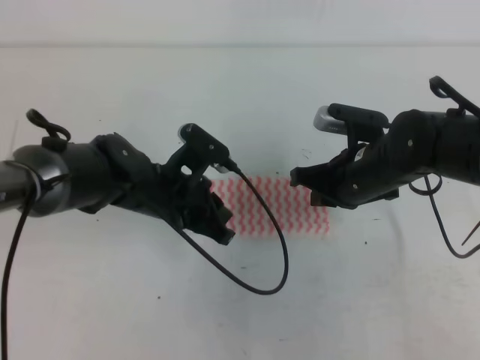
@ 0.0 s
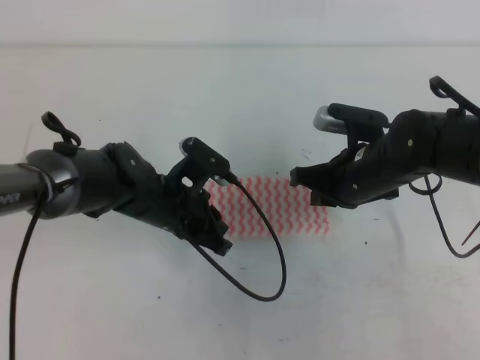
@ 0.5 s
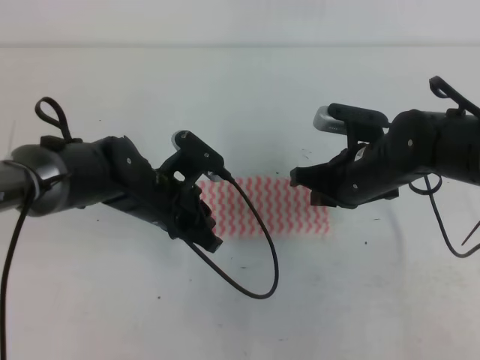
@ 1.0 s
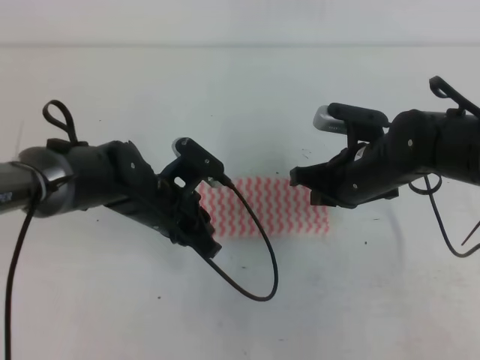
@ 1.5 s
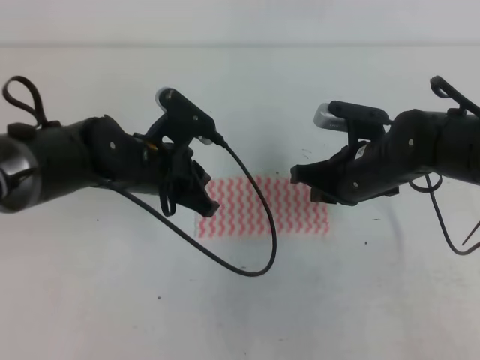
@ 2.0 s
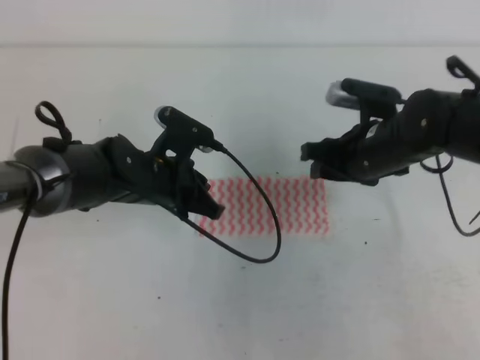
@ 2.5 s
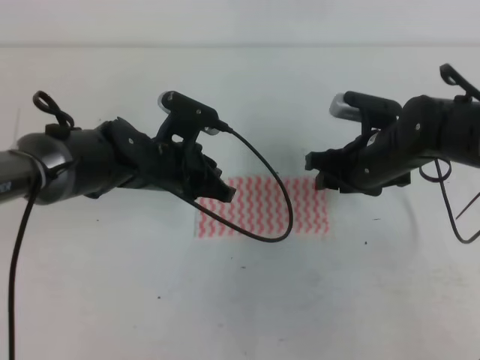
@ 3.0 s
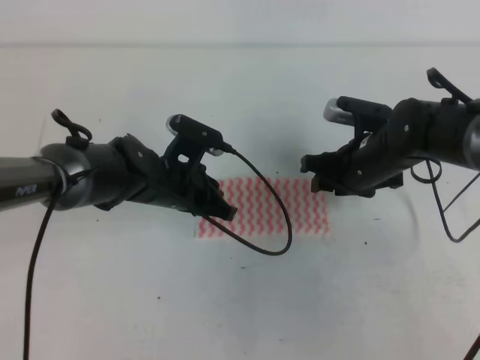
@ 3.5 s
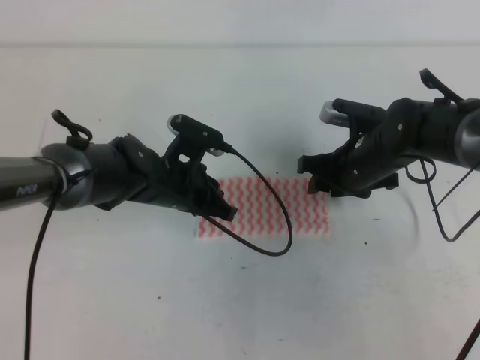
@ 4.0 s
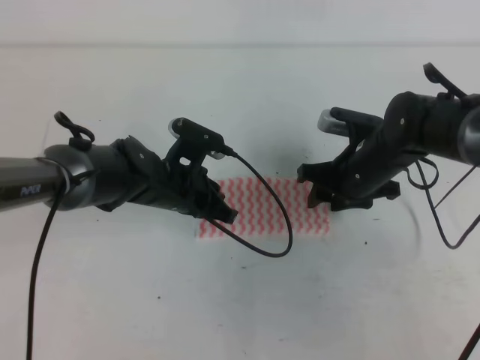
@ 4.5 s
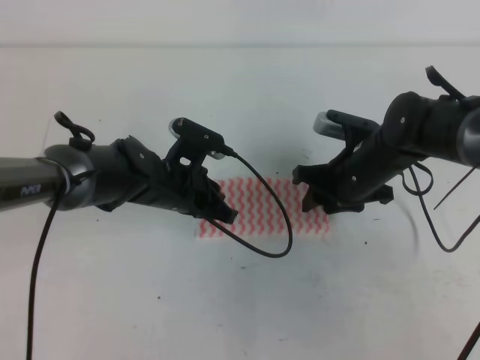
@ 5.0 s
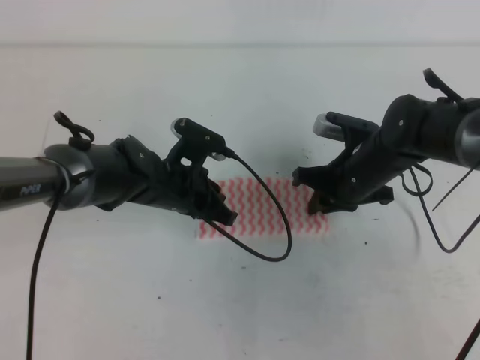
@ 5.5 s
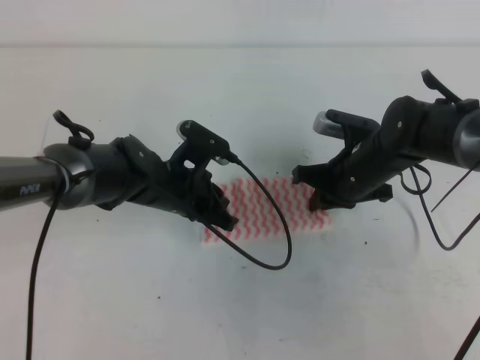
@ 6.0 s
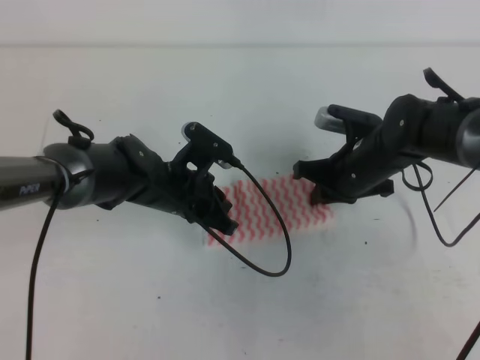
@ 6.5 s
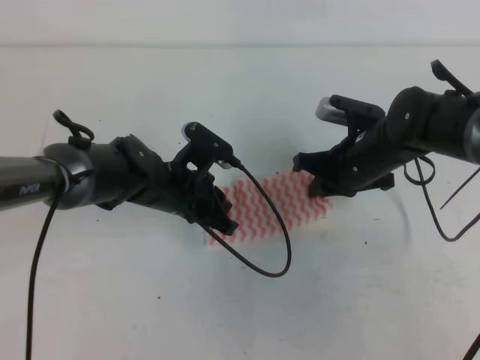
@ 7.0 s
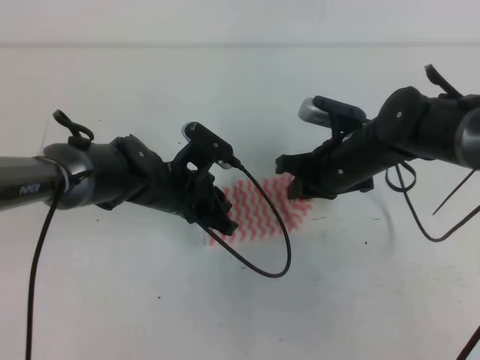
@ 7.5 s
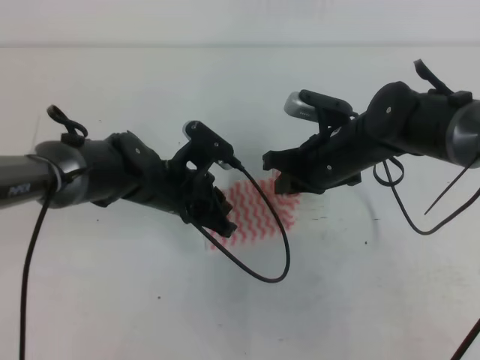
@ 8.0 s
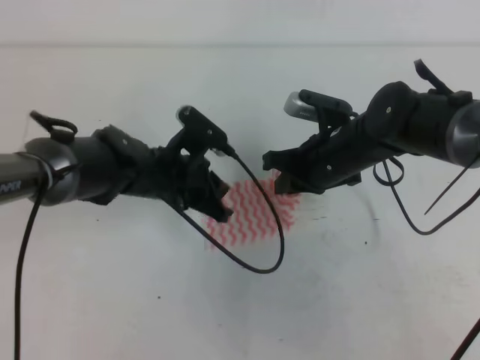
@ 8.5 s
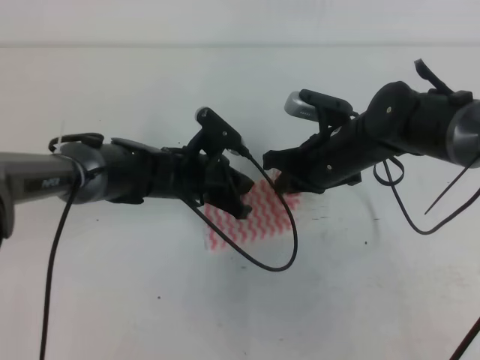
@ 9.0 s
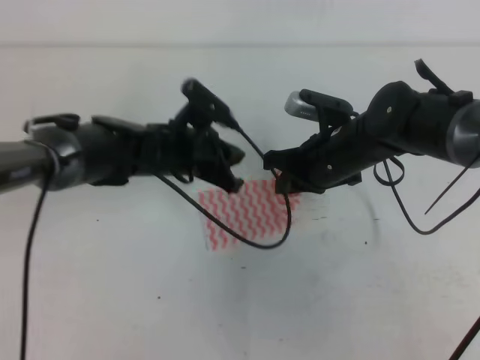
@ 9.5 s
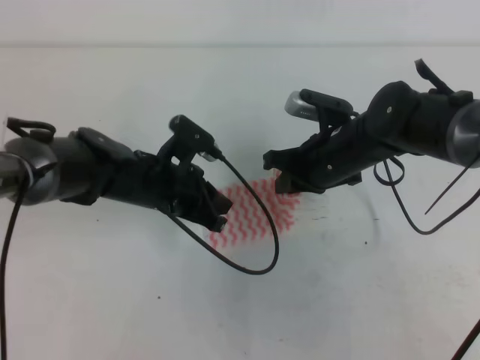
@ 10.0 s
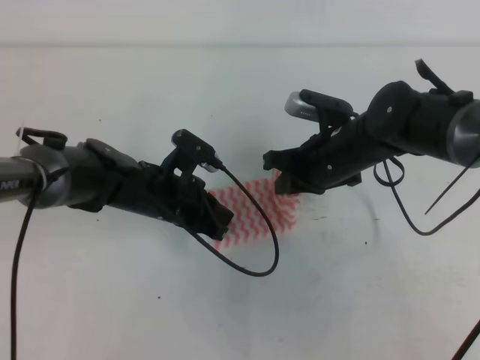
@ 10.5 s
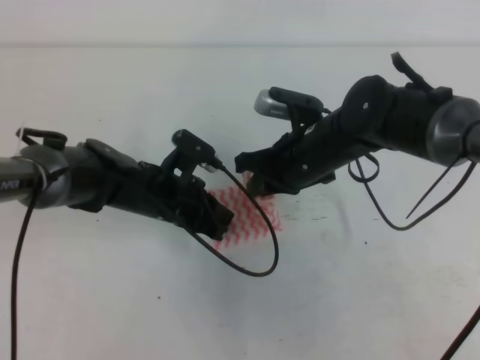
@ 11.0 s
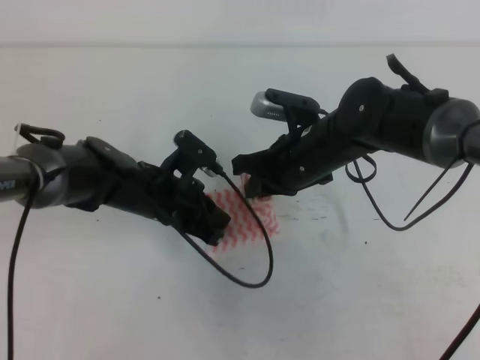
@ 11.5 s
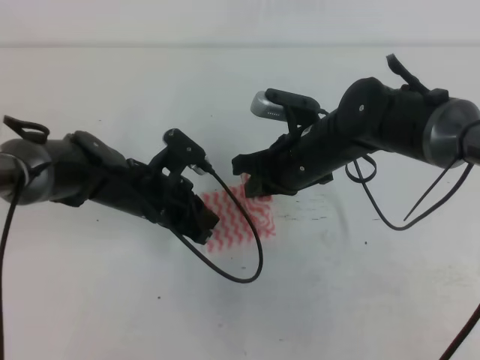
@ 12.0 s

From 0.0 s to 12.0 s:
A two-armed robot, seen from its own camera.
From 0.0 s to 2.0 s: The grippers move only a little.
From 2.0 s to 4.0 s: The right gripper shifts by some 5 cm, and opens up. The left gripper goes about 5 cm downward.
From 4.0 s to 6.0 s: The right gripper closes its fingers.
From 6.0 s to 8.0 s: The right gripper moves approximately 5 cm.
From 8.0 s to 12.0 s: The grippers make only small movements.

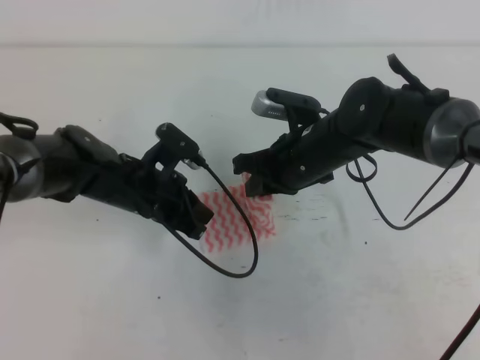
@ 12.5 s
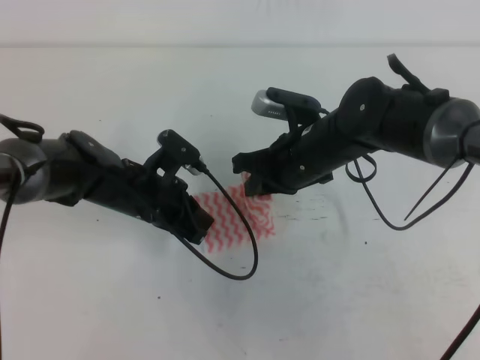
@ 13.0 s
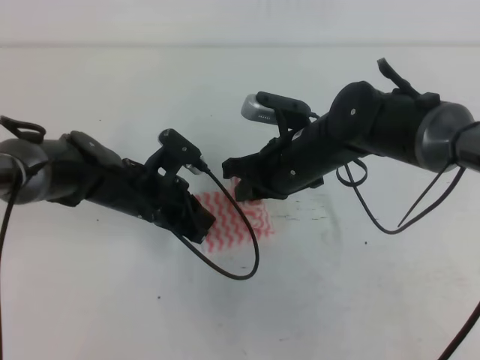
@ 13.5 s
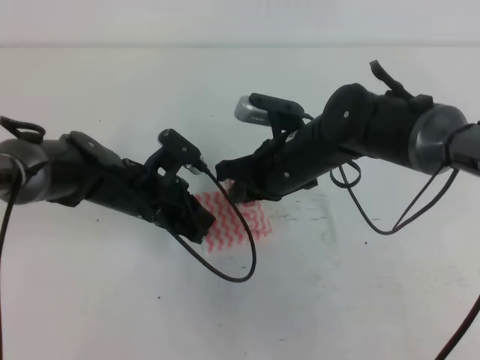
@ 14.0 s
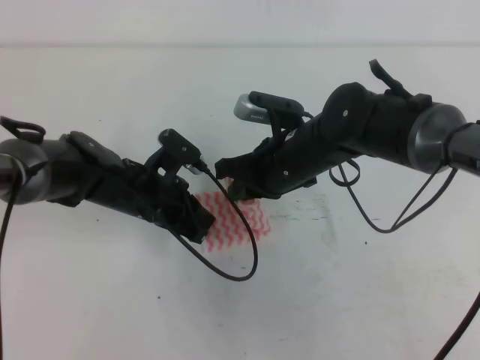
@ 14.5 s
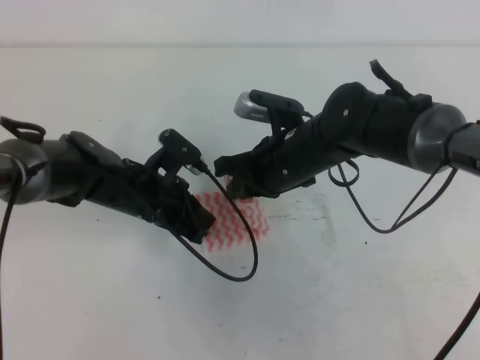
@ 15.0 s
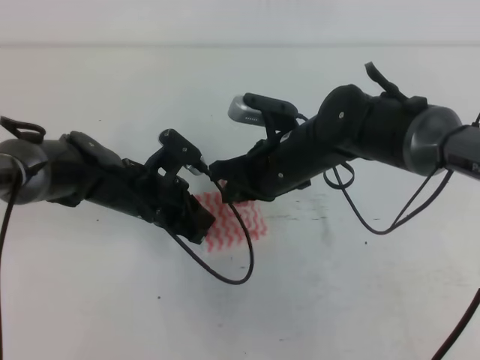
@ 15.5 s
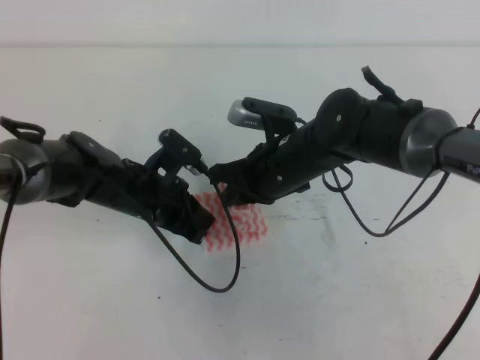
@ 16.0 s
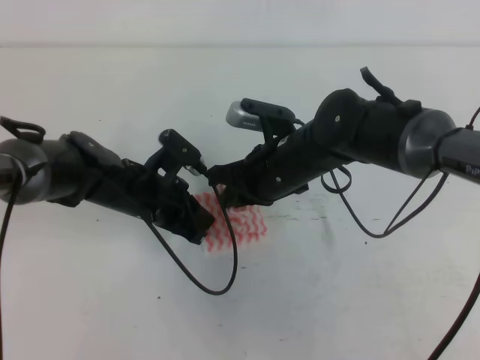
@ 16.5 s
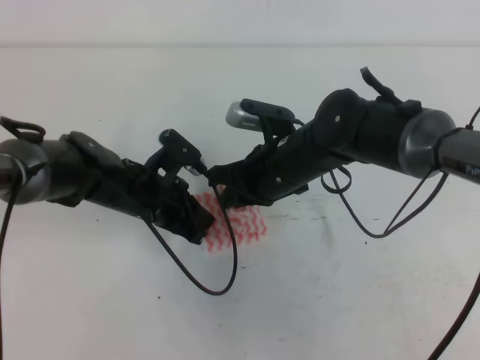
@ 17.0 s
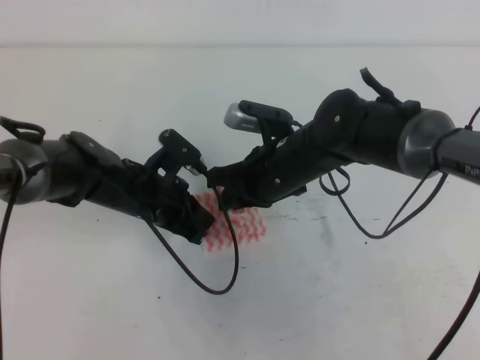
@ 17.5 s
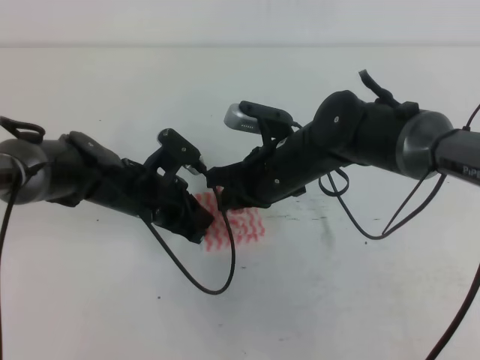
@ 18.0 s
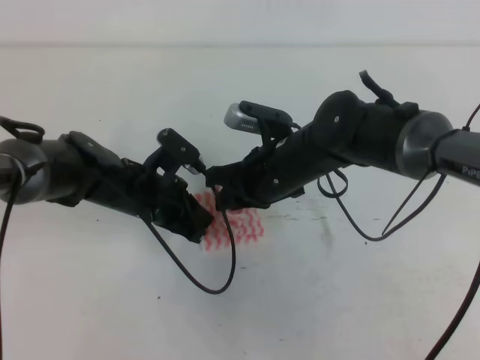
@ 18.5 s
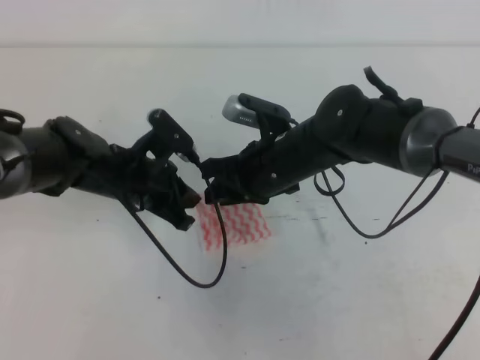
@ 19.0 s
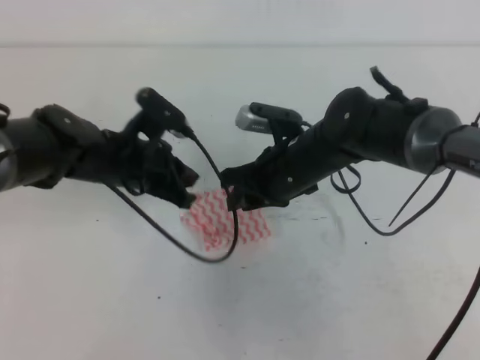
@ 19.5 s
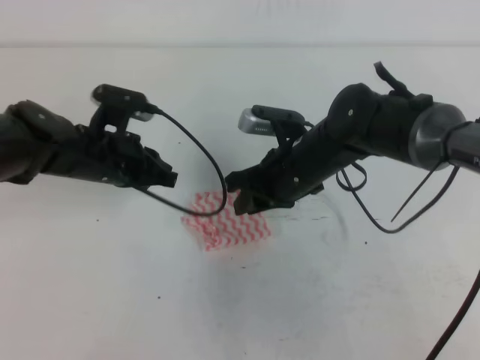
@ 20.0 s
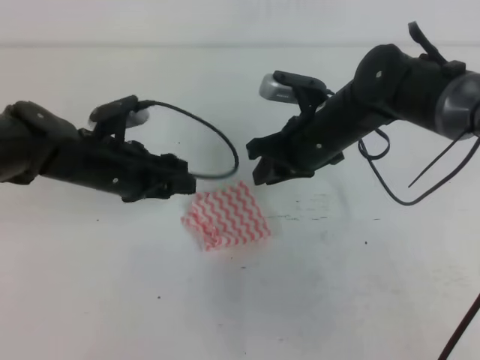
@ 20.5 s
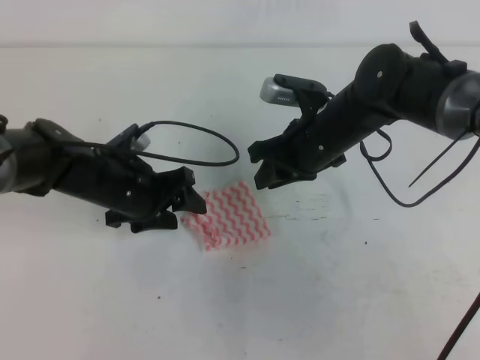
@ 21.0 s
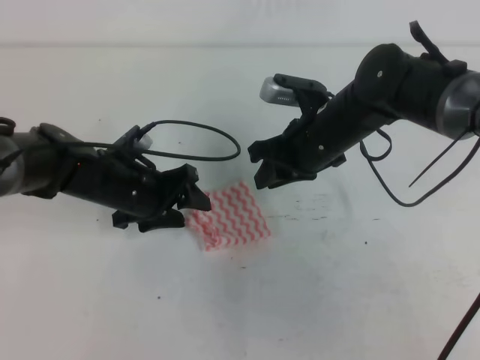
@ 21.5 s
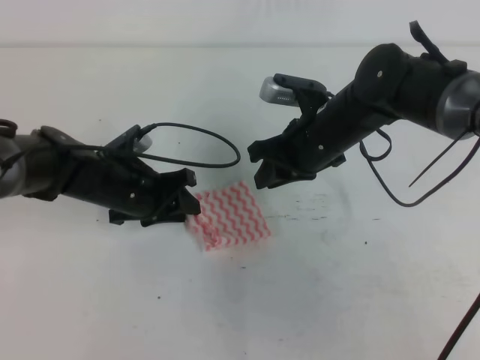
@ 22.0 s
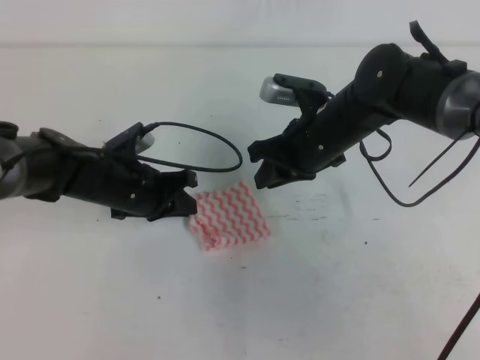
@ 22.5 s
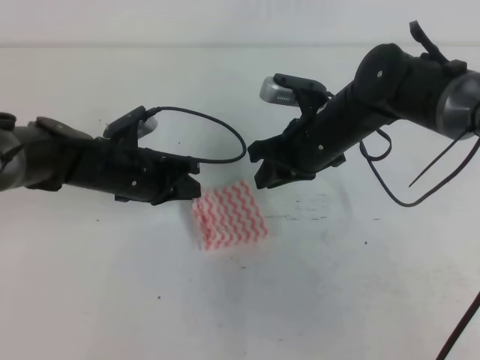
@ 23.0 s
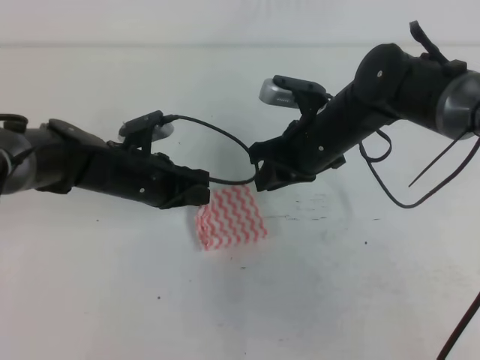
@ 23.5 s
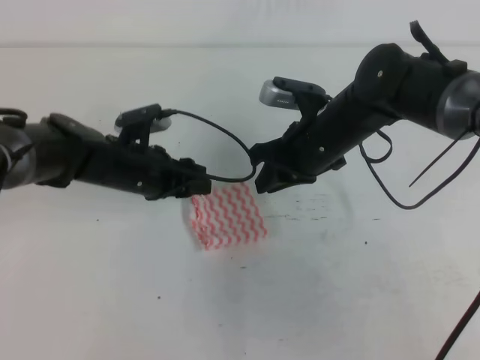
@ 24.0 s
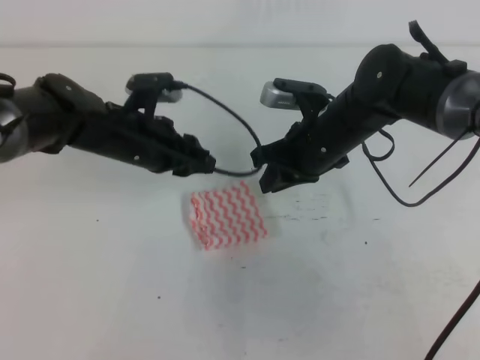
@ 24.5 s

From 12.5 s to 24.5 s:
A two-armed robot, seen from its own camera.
From 12.5 s to 14.5 s: There are only small adjustments of the grippers.
From 14.5 s to 16.5 s: Both grippers stay put.
From 16.5 s to 18.5 s: Both grippers stay about where they are.
From 18.5 s to 20.5 s: The right gripper moves about 5 cm; the left gripper ends up some 5 cm from where it was, and opens its fingers.
From 20.5 s to 22.5 s: The left gripper closes.
From 22.5 s to 24.5 s: The left gripper goes about 5 cm upward.

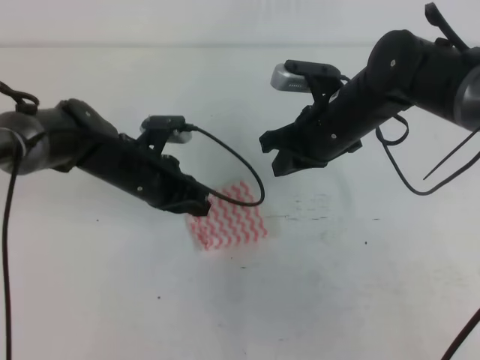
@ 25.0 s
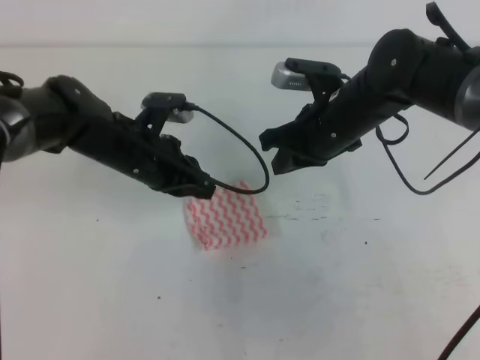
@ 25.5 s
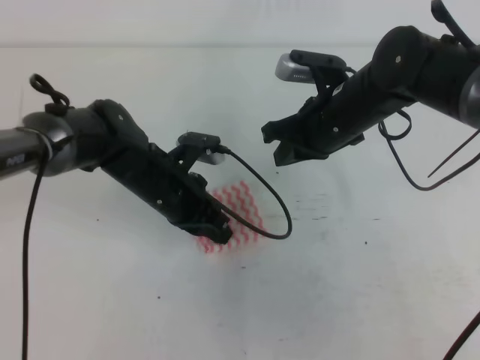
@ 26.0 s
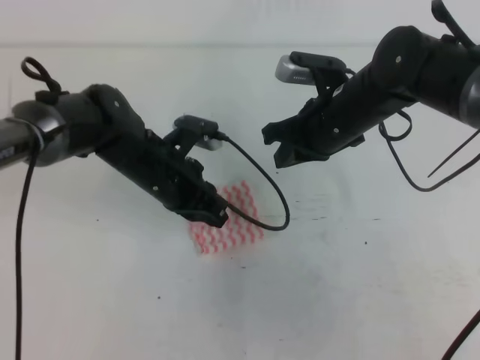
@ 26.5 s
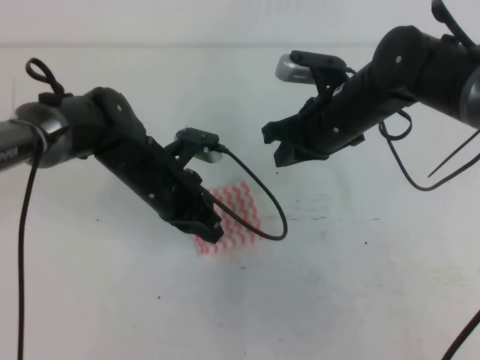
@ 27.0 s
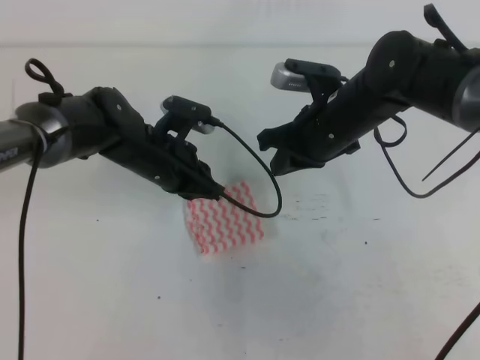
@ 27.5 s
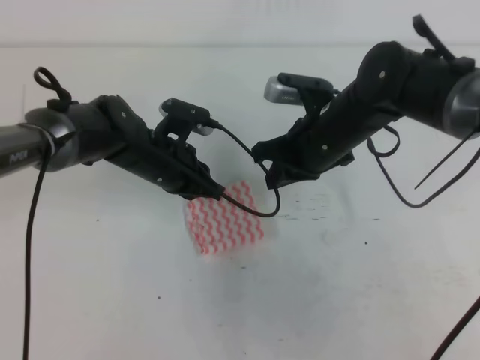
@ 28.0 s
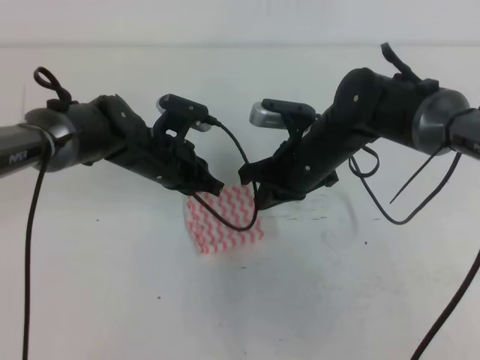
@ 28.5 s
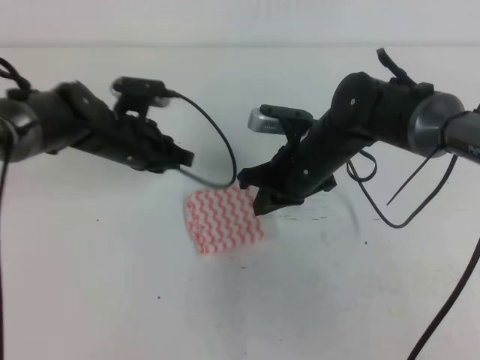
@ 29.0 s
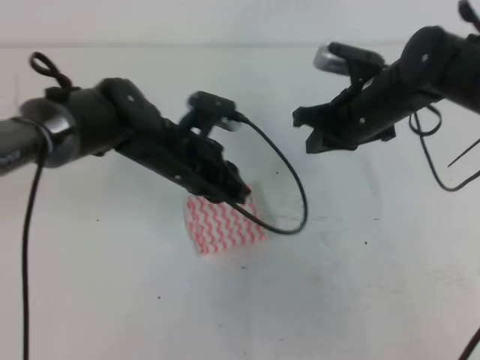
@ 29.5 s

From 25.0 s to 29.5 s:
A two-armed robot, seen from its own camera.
From 25.0 s to 27.0 s: The grippers stay close to where they were, moving slightly.
